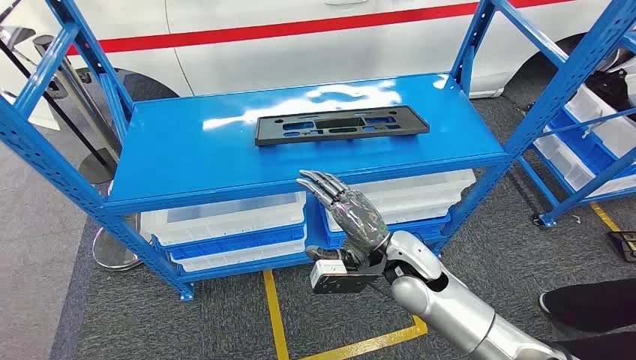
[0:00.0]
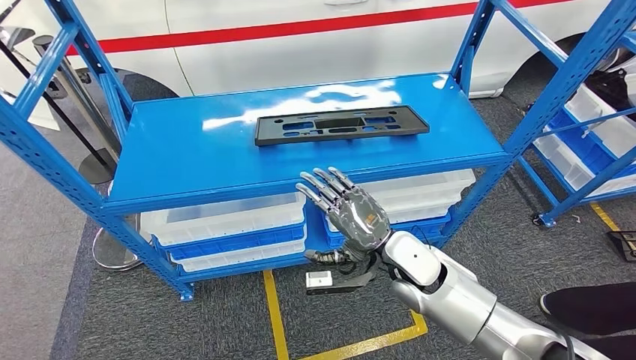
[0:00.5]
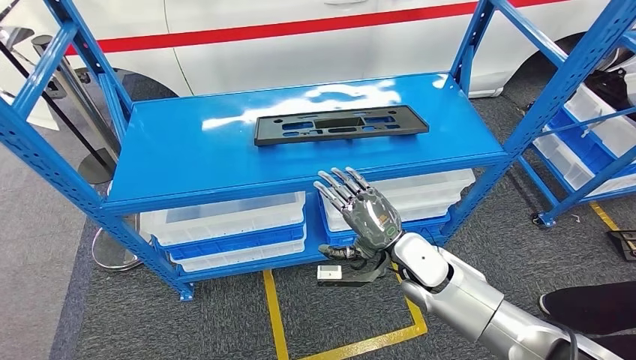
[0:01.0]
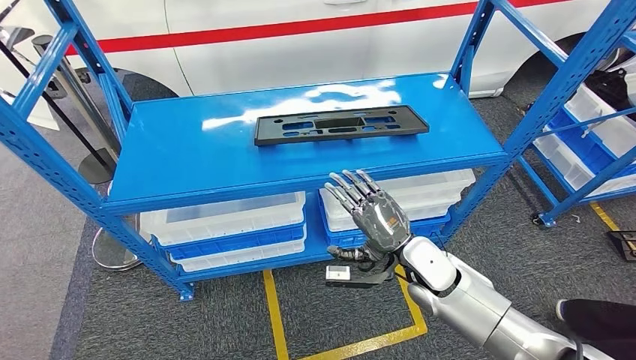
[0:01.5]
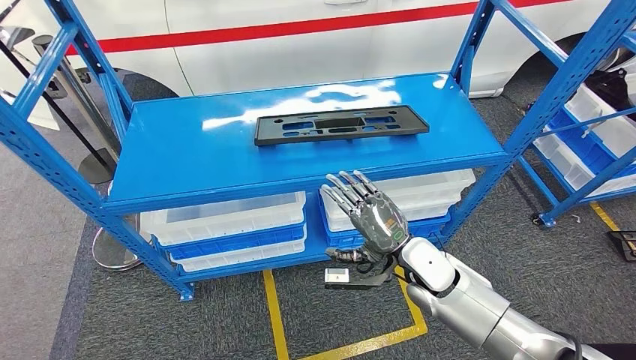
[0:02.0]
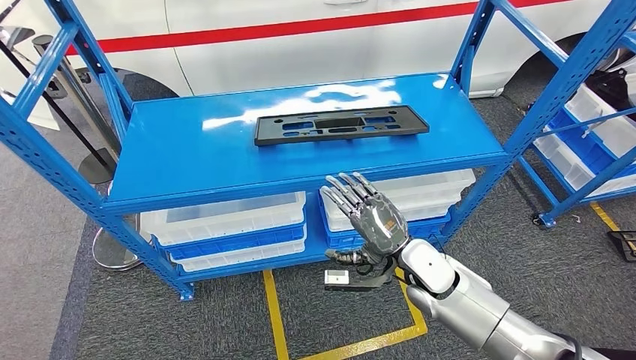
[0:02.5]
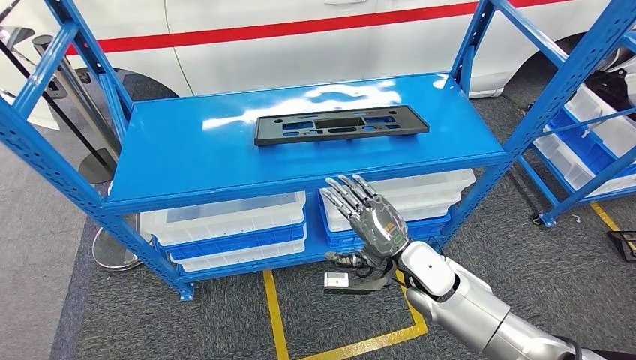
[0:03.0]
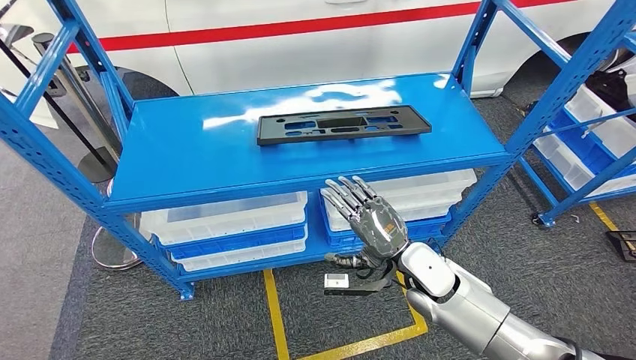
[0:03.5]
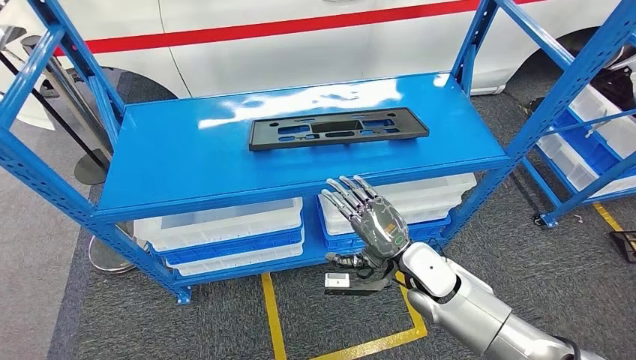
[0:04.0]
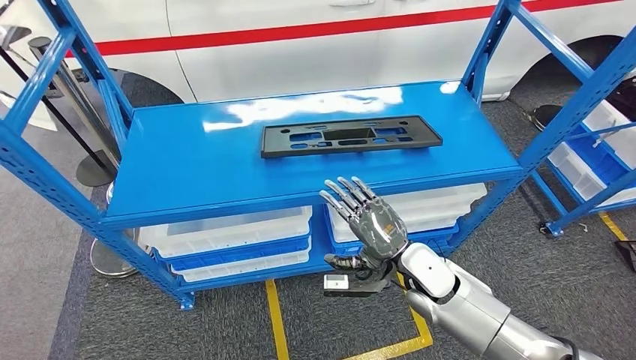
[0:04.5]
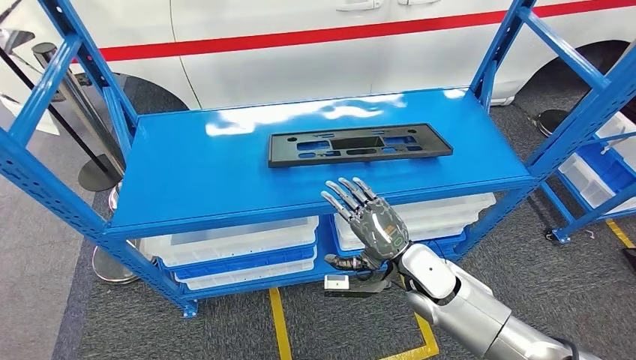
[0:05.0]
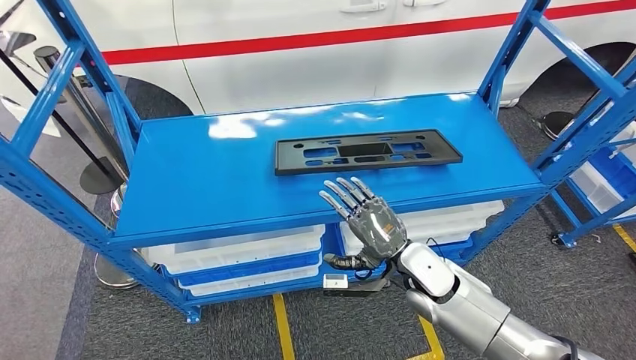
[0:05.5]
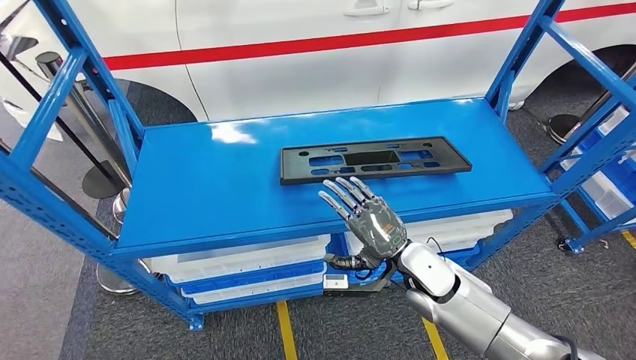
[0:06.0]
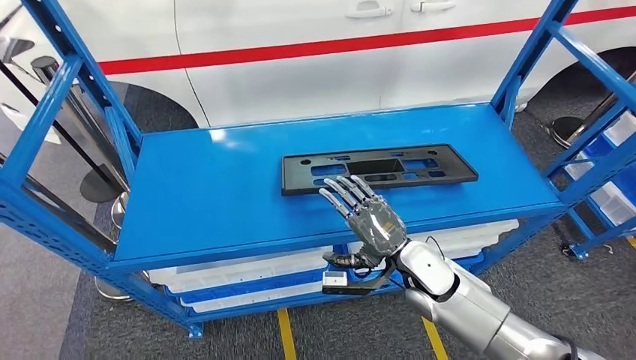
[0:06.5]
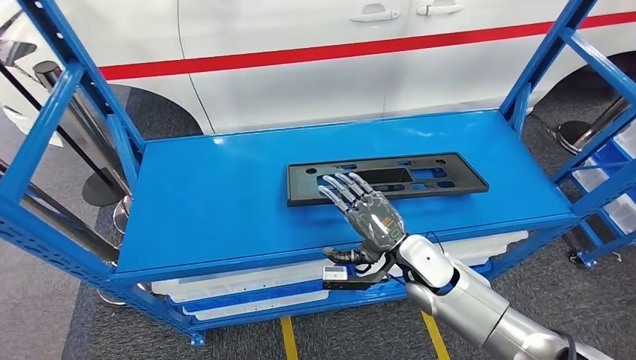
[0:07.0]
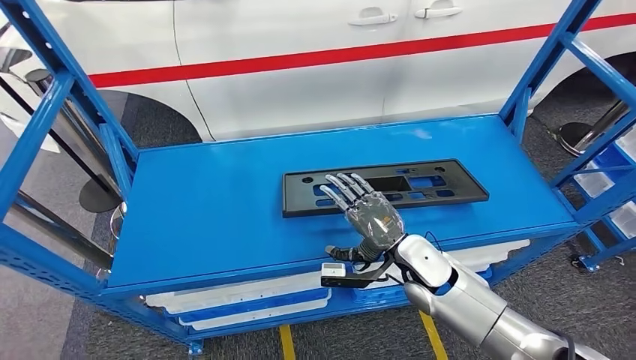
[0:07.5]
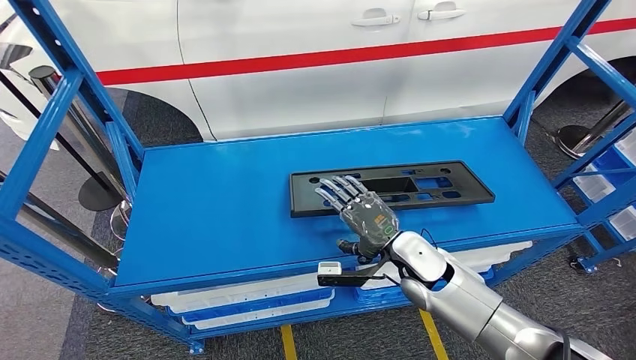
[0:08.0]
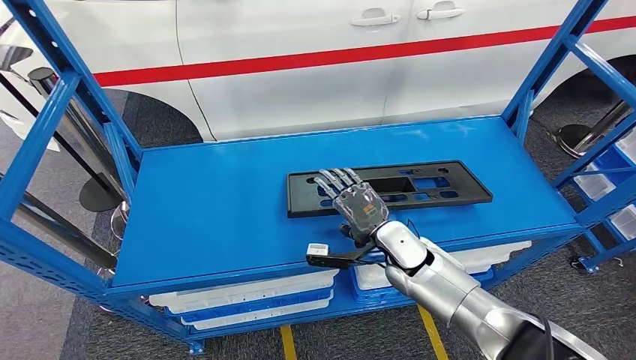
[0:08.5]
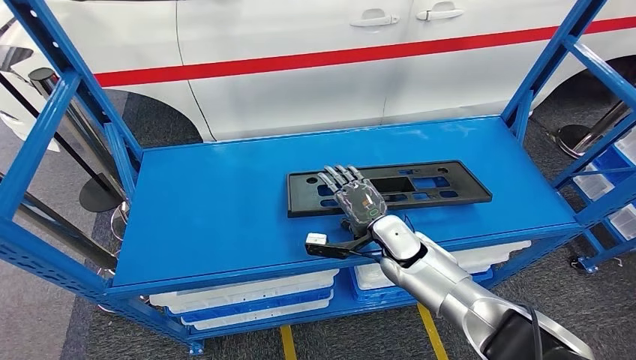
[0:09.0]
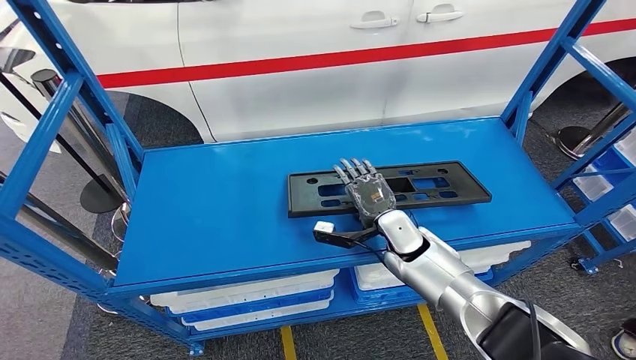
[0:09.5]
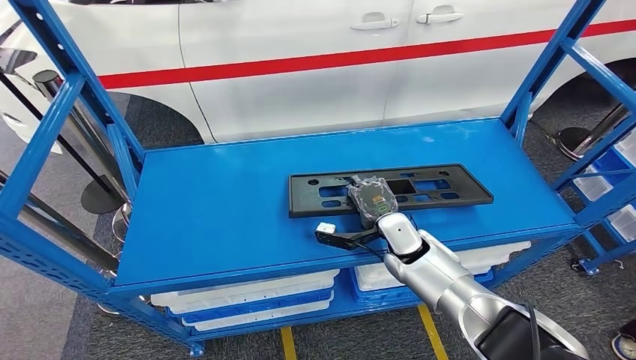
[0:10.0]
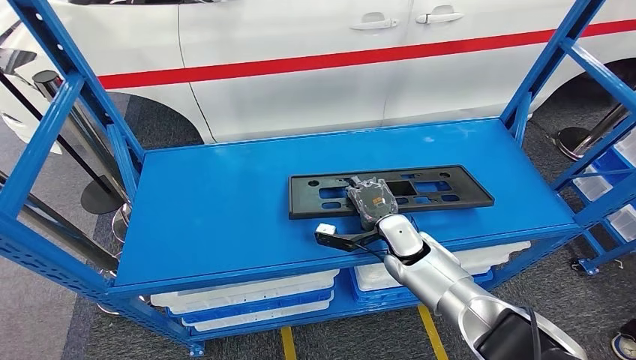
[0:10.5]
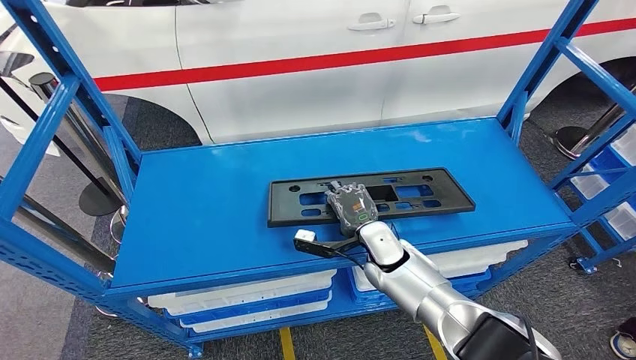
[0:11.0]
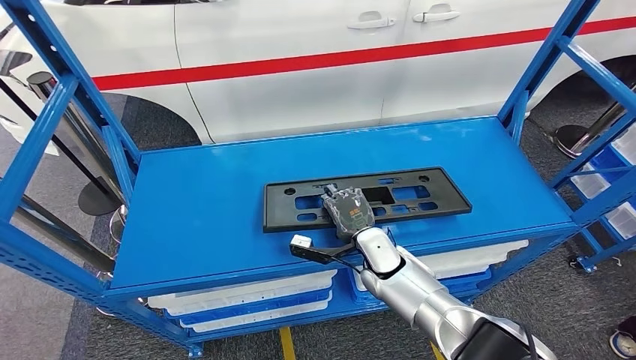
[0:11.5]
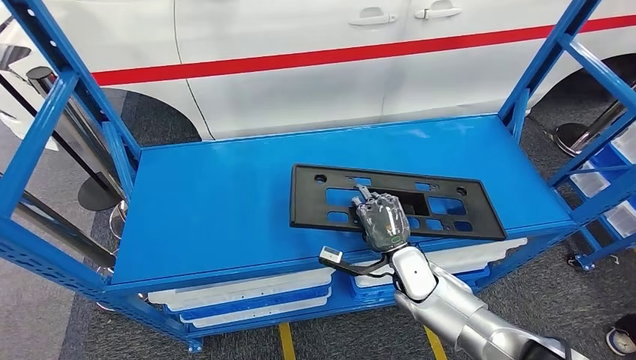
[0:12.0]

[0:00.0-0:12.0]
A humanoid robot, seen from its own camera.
0:08.0 to 0:10.0: The right hand moves forward, approximately 5 cm.

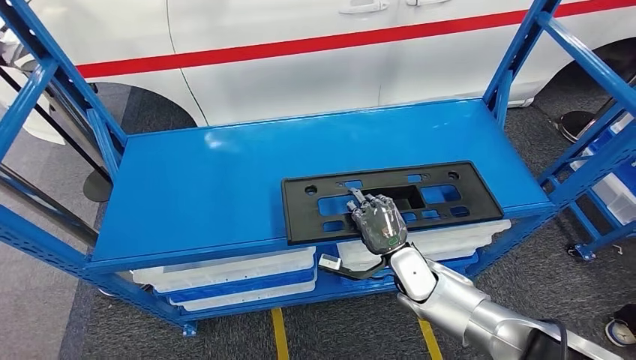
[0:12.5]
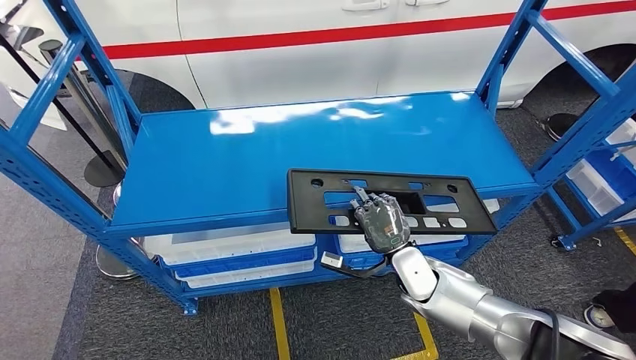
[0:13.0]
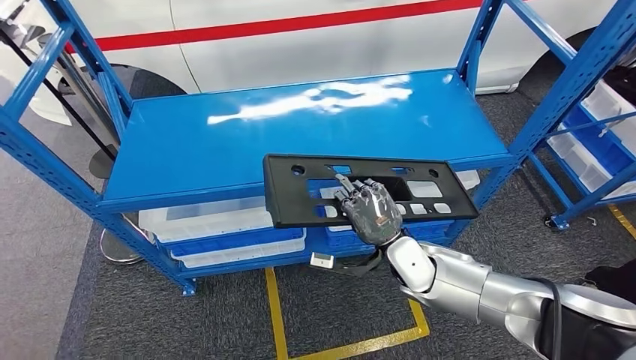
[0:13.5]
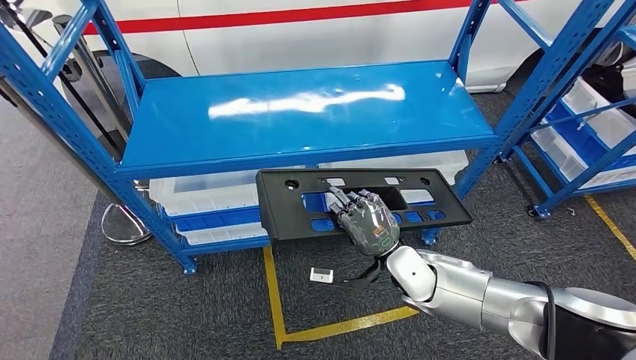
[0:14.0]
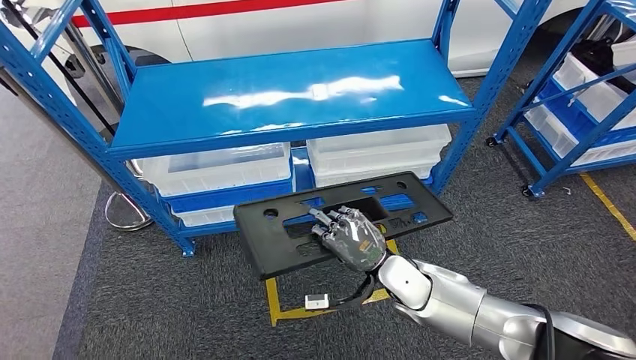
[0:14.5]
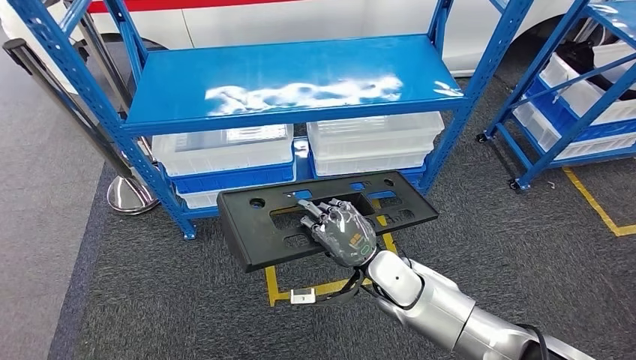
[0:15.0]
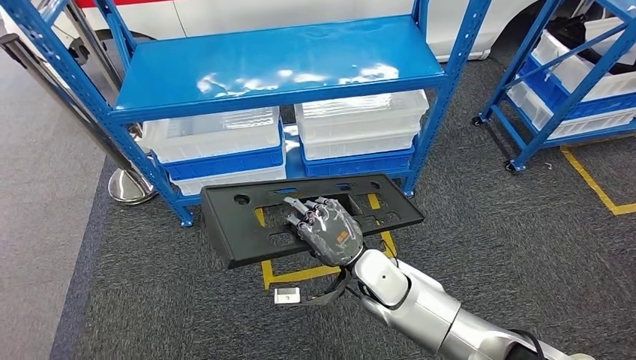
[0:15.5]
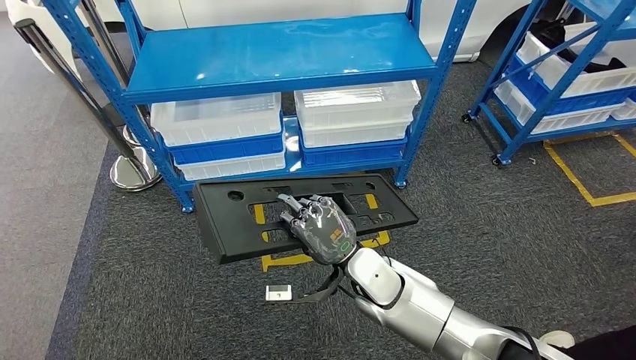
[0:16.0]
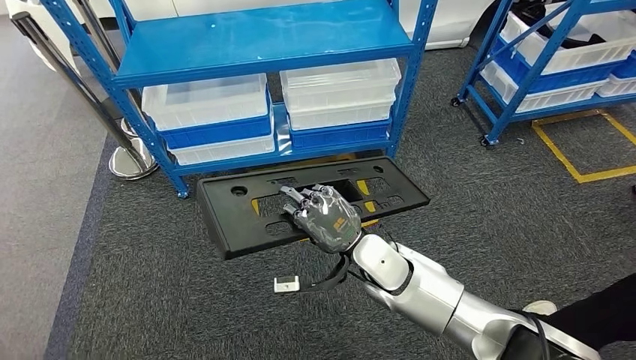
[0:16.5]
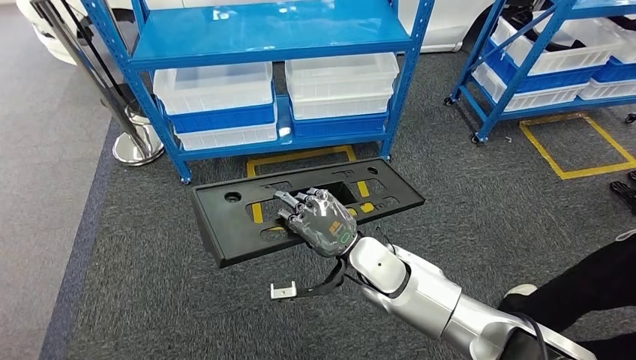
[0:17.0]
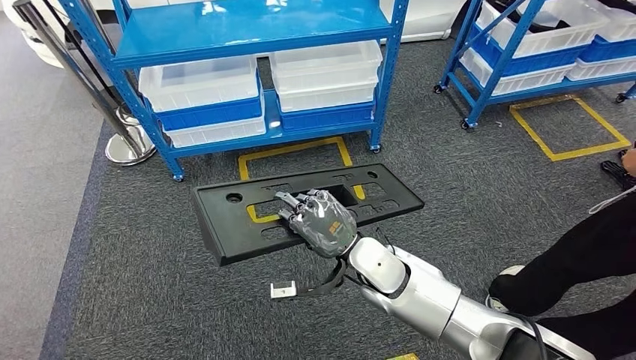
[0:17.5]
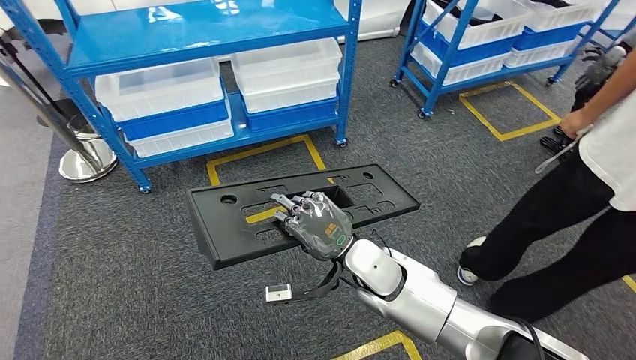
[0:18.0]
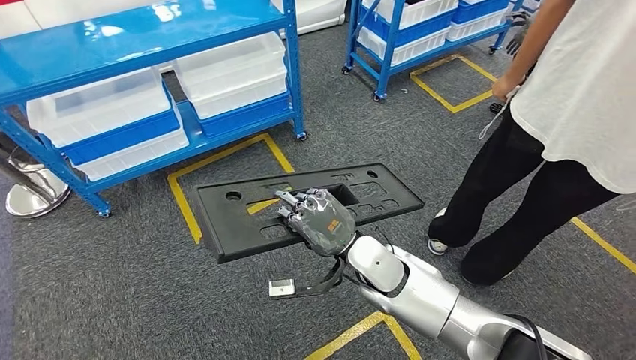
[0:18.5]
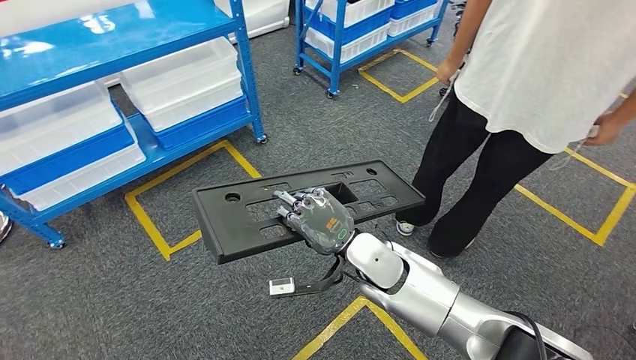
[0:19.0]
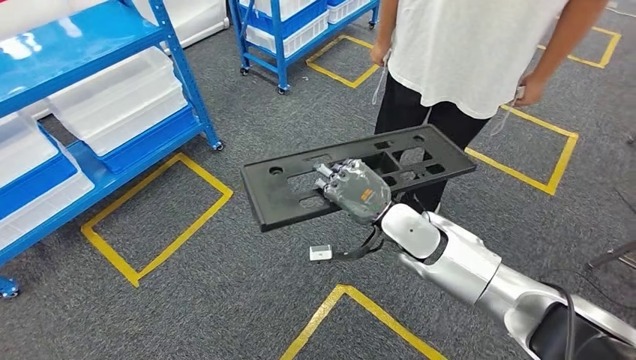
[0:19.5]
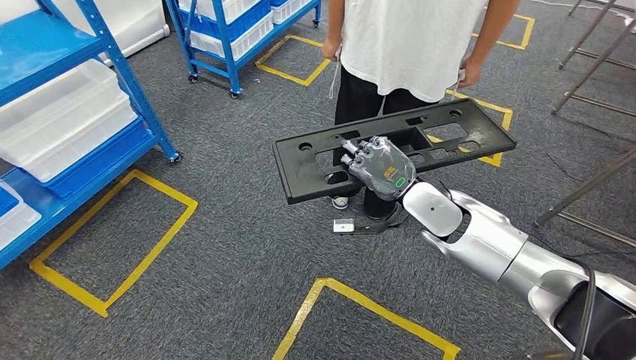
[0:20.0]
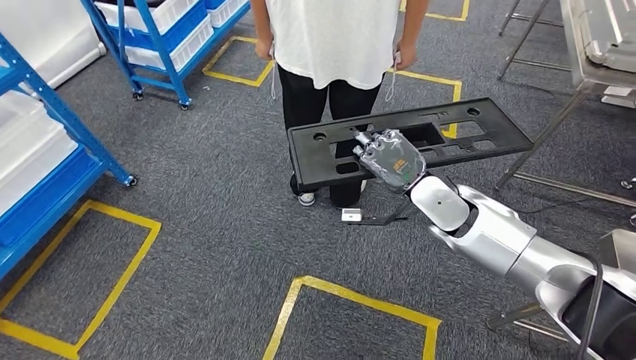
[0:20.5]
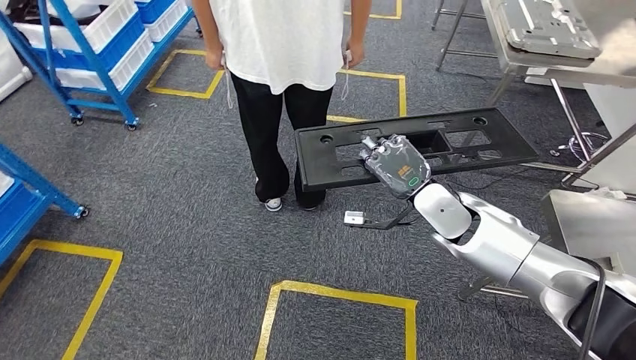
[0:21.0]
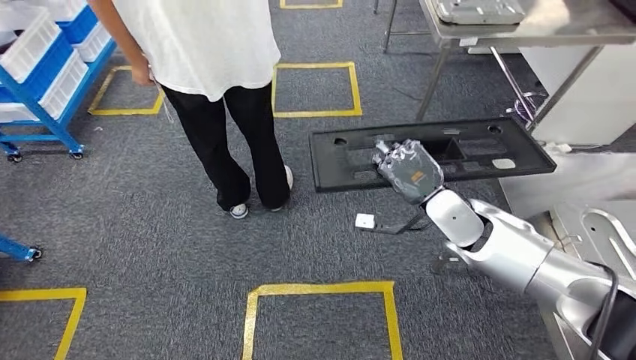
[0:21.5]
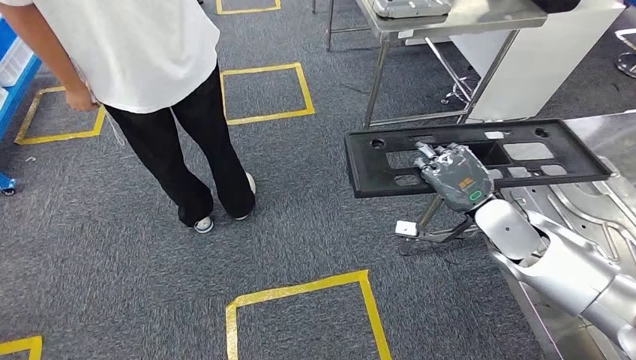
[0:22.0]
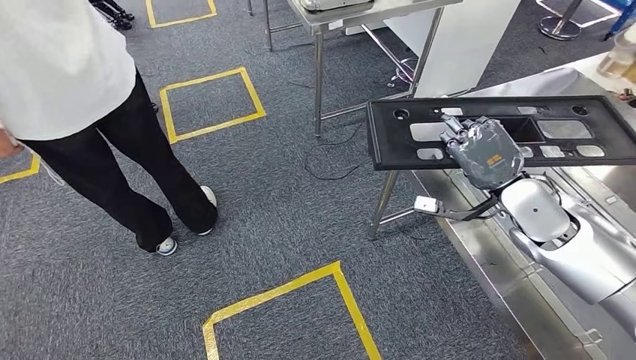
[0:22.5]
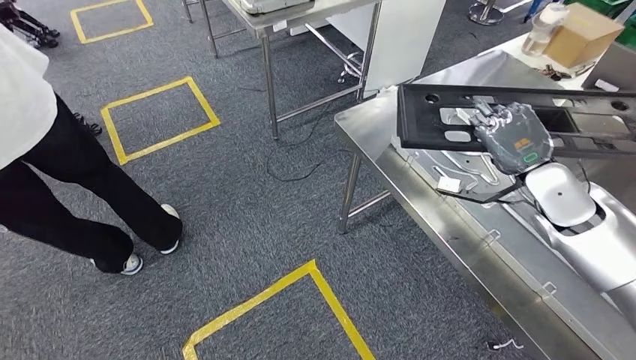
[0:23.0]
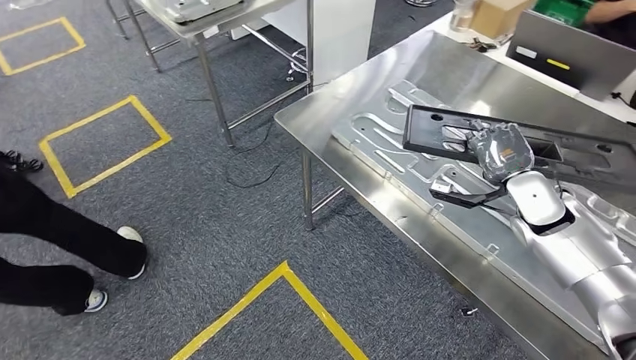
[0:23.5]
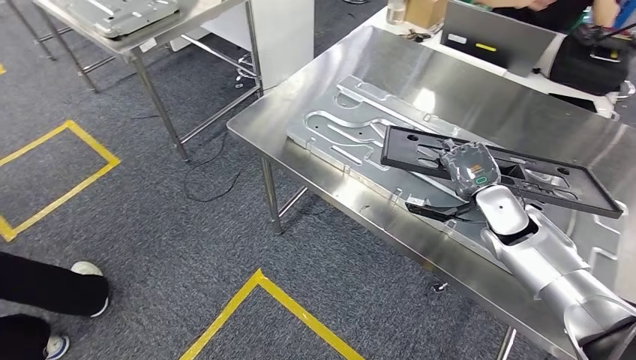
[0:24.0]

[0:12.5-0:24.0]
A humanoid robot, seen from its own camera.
Step, 0:12.5 to 0:14.5: Pick up the large material from the shelf.
